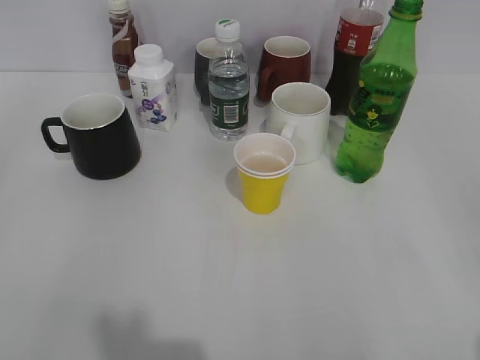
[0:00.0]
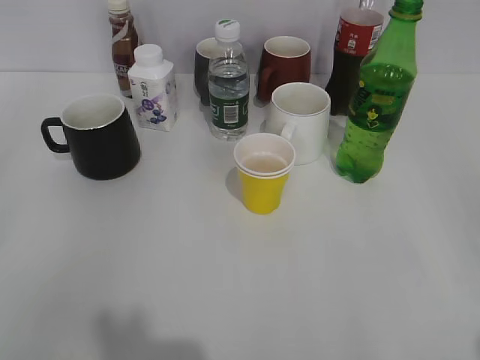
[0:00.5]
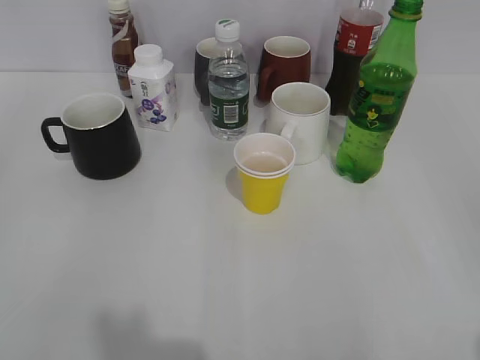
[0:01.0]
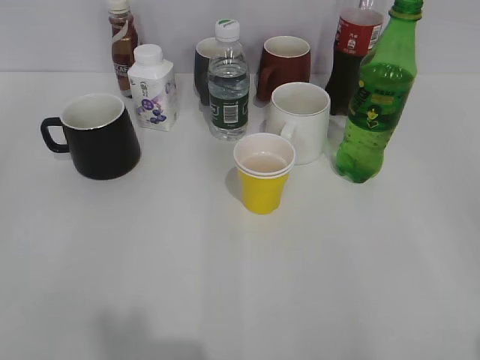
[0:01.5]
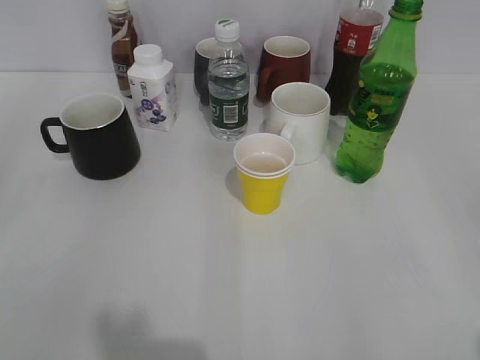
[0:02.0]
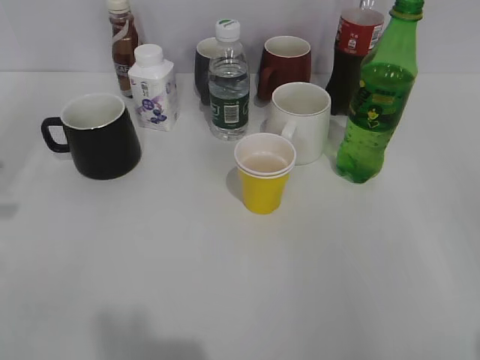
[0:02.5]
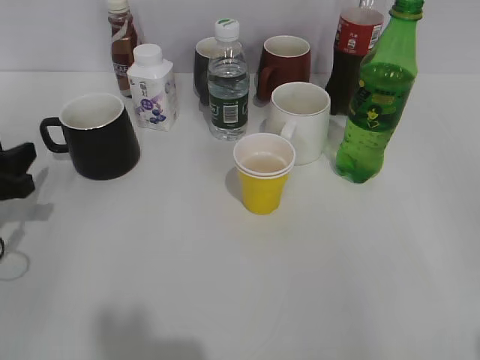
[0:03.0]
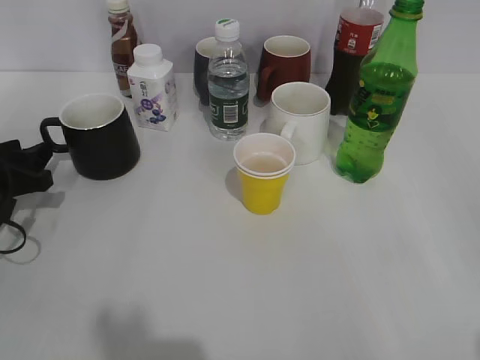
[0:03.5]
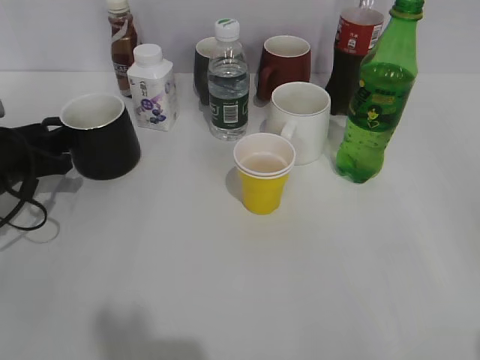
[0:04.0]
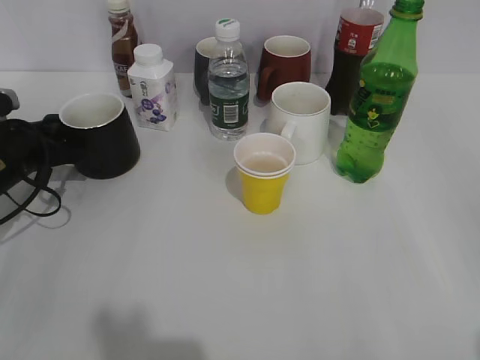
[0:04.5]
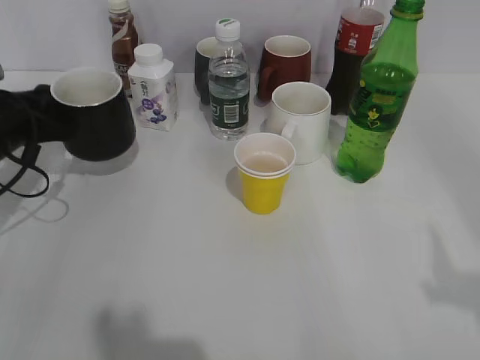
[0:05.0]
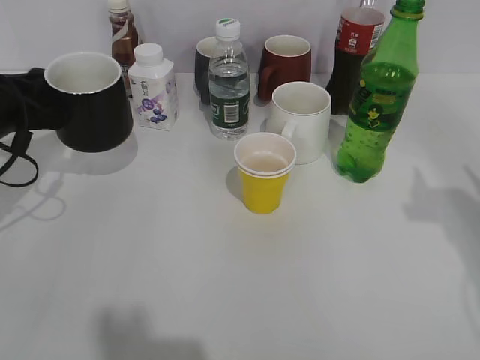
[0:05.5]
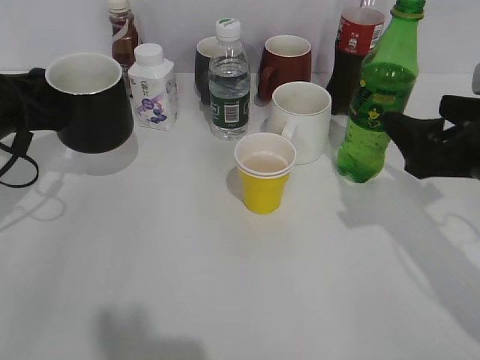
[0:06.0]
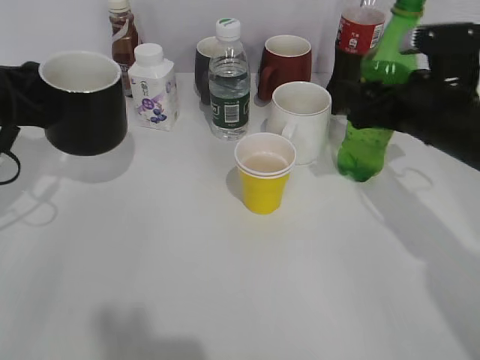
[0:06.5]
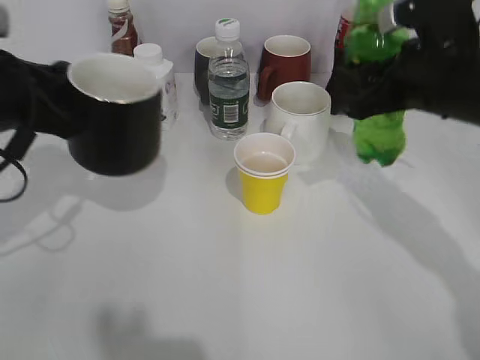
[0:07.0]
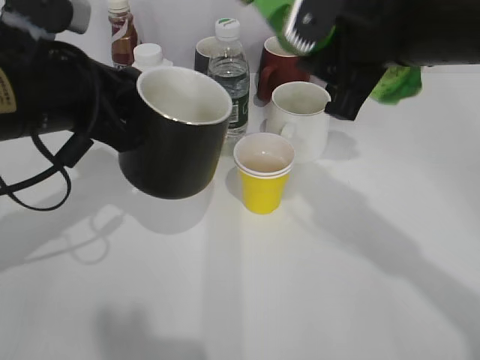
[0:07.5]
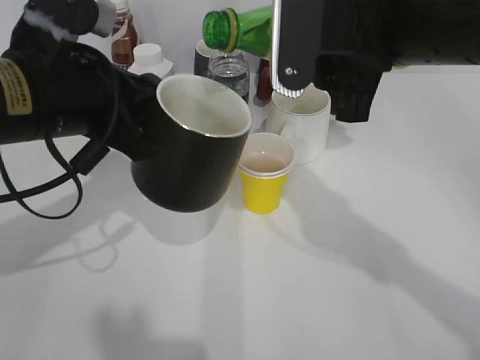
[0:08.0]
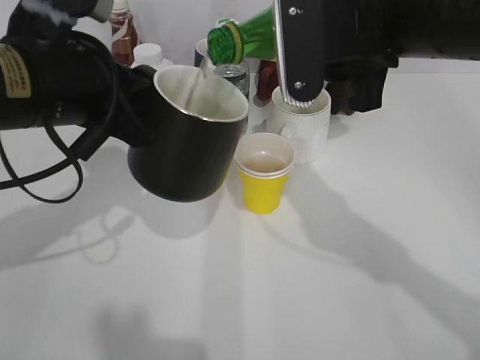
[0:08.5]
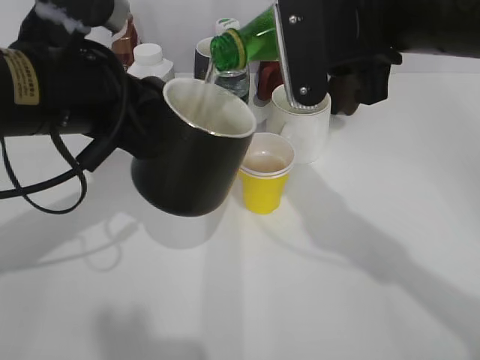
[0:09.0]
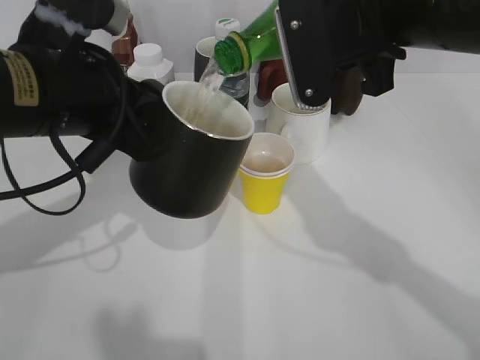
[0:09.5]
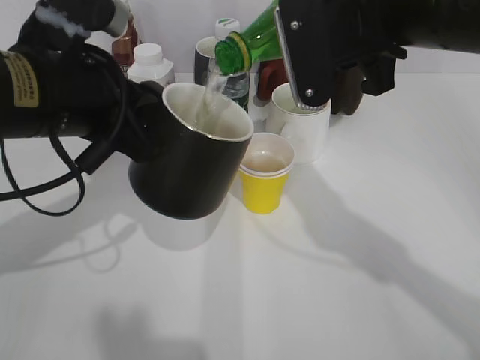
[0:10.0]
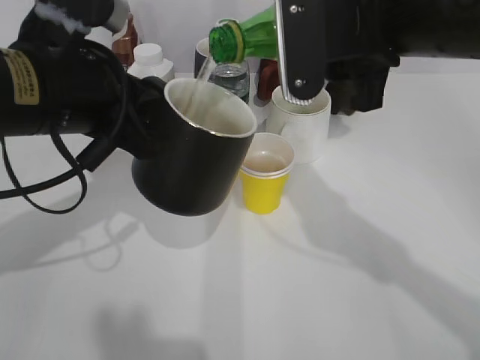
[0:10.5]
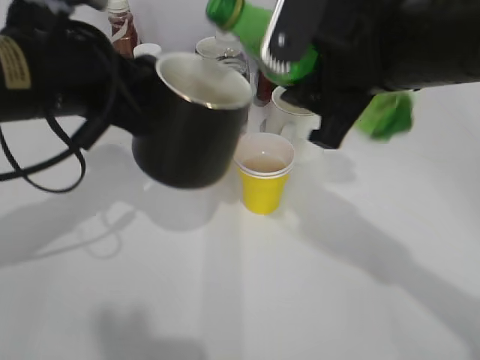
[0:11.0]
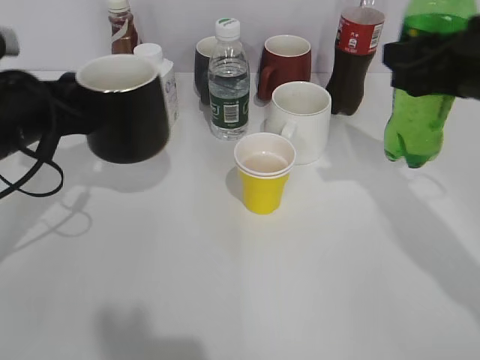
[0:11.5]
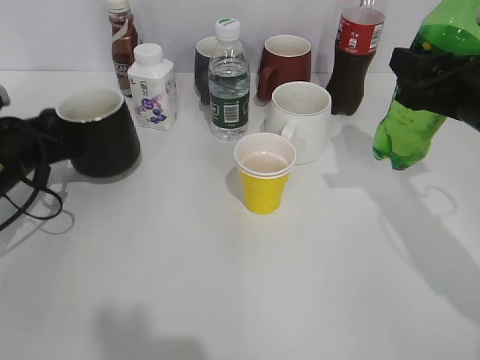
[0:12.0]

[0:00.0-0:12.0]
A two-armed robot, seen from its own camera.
Step, 0:02.0 to 0:04.0: Grasp the black cup with left gripper.
Step, 0:04.5 to 0:05.0: Lift the black cup with left gripper.
Step, 0:05.5 to 0:06.5: Grasp the bottle with sprite with right gripper.
Step, 0:07.0 to 0:10.5: Pour the sprite from bottle to cup with right gripper.
Step, 0:11.0 to 0:11.5: Place the black cup on the table with left gripper.
0:02.0 to 0:04.0: The left gripper heads forward and downward, covering approximately 35 cm.
0:04.0 to 0:06.0: The right gripper travels forward by approximately 20 cm; the left gripper goes some 5 cm upward, and closes up.
0:06.0 to 0:08.0: The left gripper shifts approximately 15 cm to the right, upward and backward. The right gripper goes approximately 15 cm to the left and upward, and closes.
0:10.0 to 0:12.0: The right gripper goes about 15 cm to the right and downward. The left gripper moves downward, to the left and forward, about 20 cm.

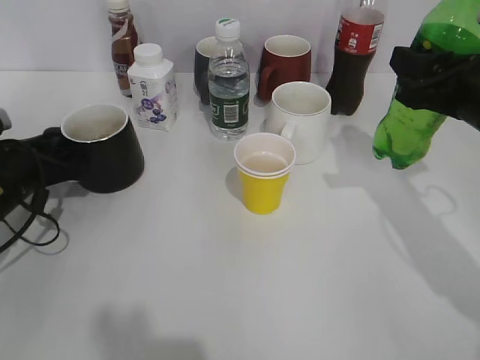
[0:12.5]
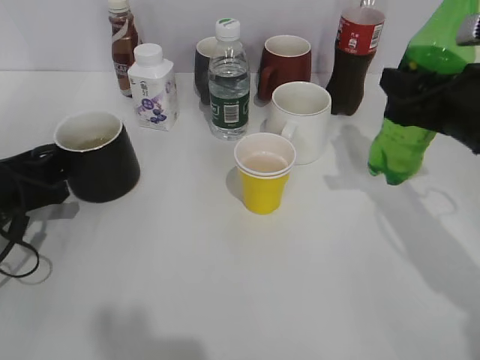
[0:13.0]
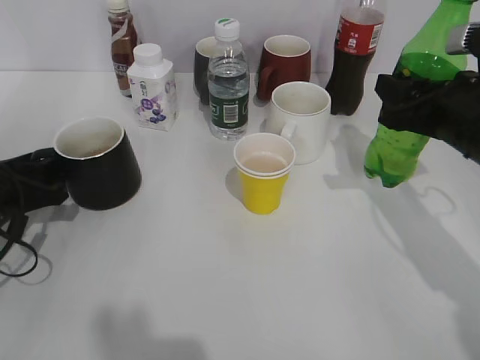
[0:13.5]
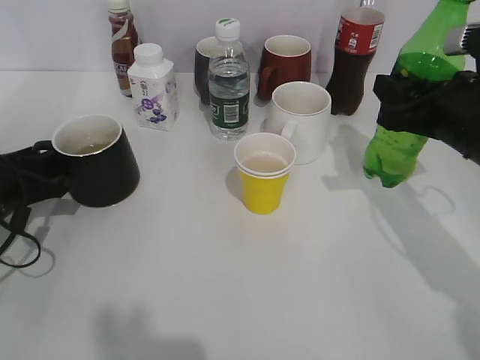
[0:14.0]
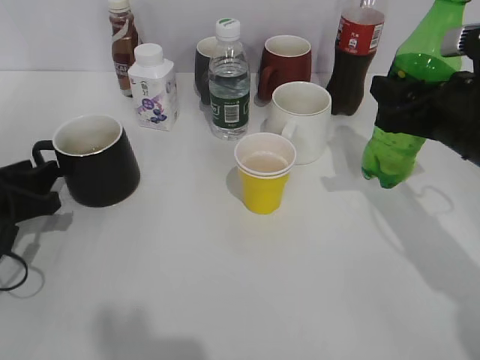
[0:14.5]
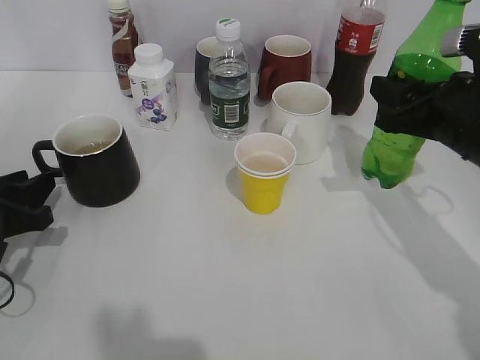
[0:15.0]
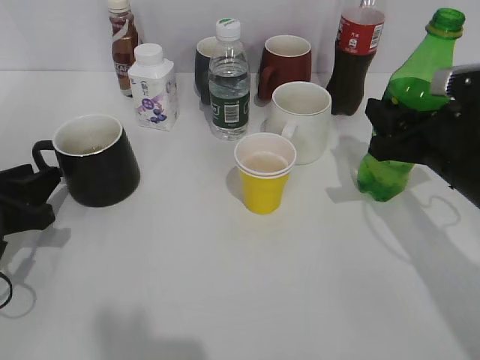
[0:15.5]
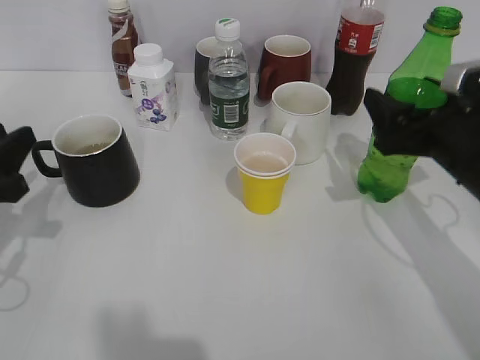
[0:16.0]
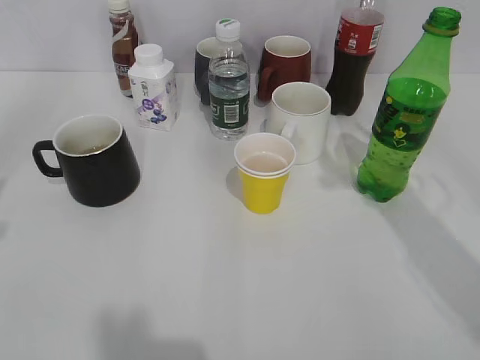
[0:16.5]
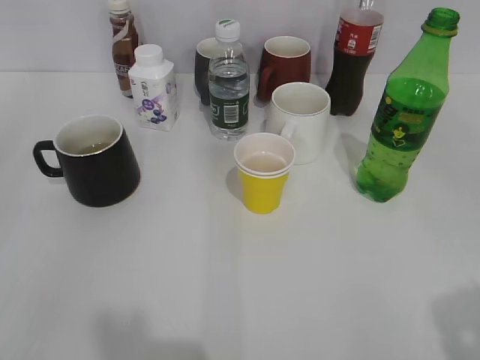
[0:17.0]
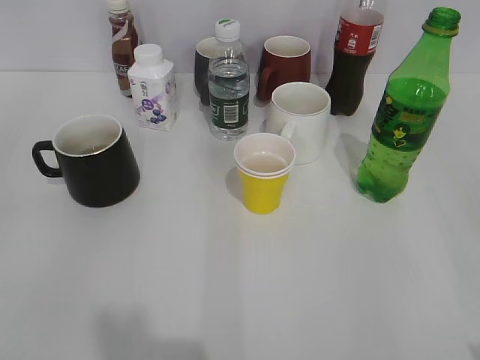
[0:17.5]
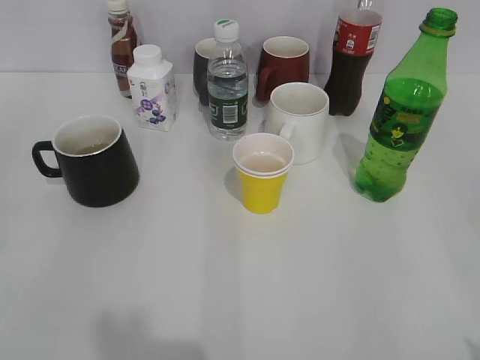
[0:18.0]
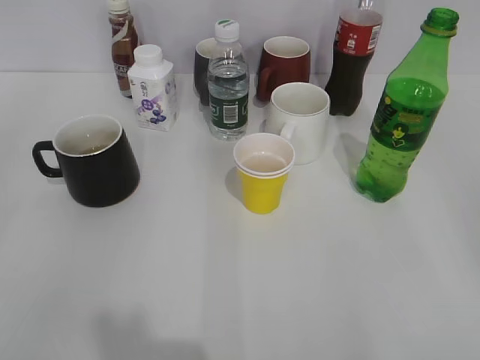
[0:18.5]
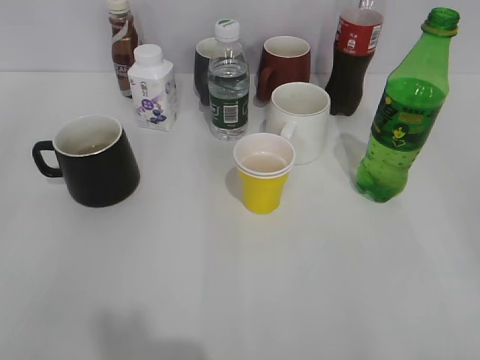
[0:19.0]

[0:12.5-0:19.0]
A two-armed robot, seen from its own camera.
Step, 0:12.5 to 0:16.0: Place the sprite bottle on the table with right gripper.
0:12.5 to 0:14.5: The left gripper moves backward, approximately 5 cm, and opens its fingers.
0:14.5 to 0:17.0: The two grippers go approximately 30 cm backward and upward. The left gripper opens, while the right gripper opens its fingers.

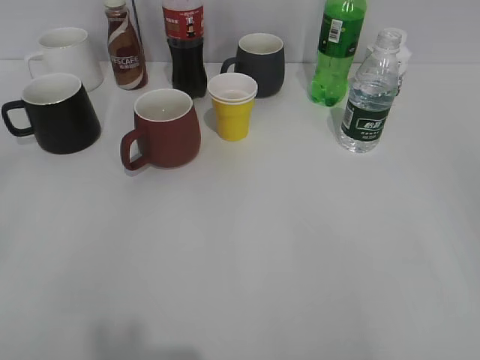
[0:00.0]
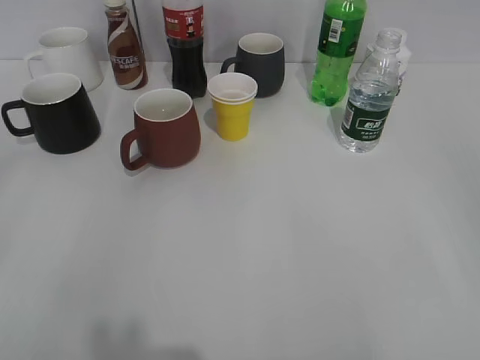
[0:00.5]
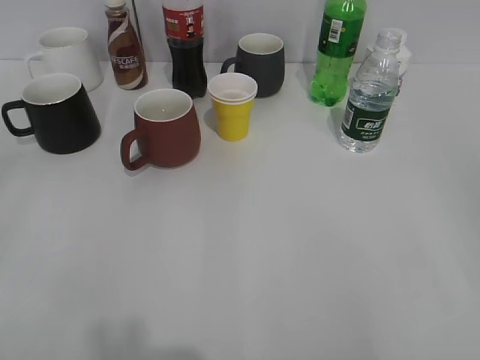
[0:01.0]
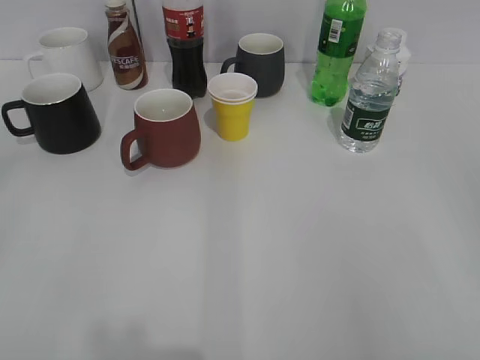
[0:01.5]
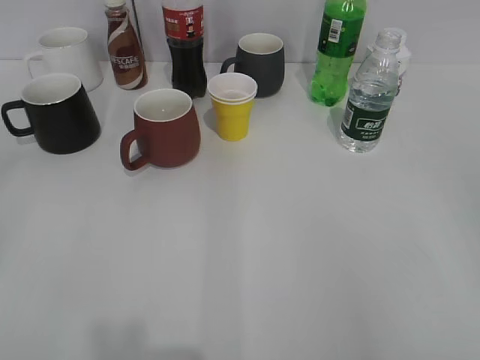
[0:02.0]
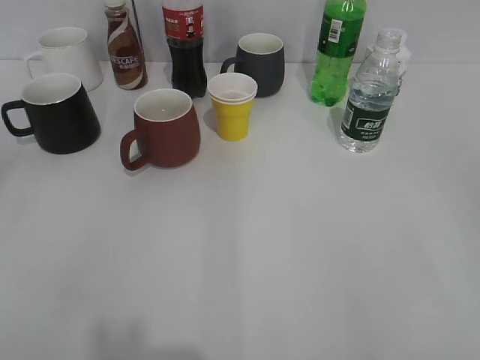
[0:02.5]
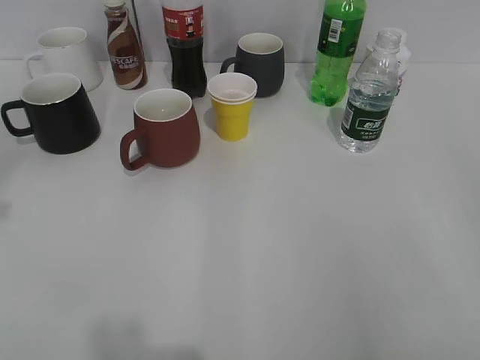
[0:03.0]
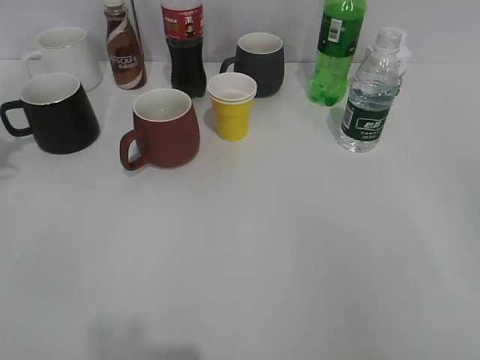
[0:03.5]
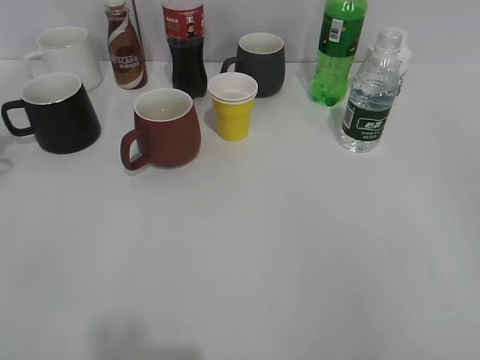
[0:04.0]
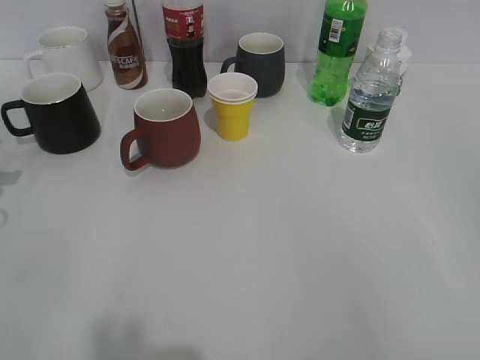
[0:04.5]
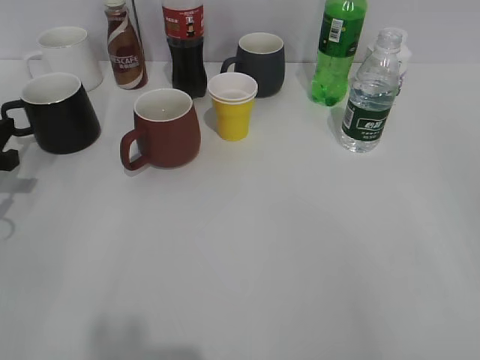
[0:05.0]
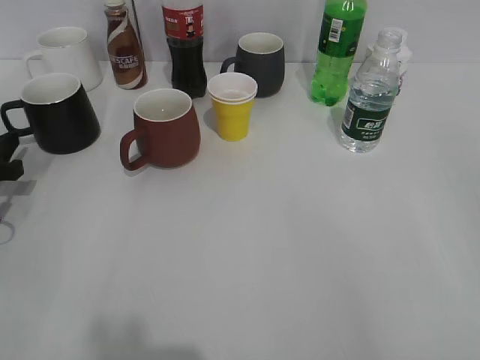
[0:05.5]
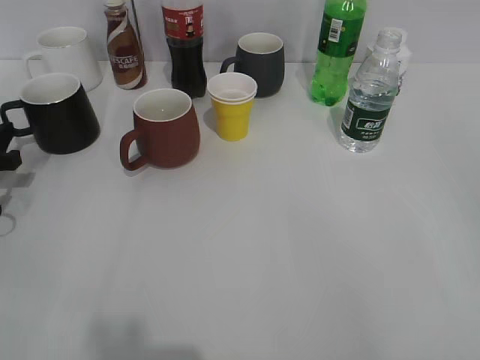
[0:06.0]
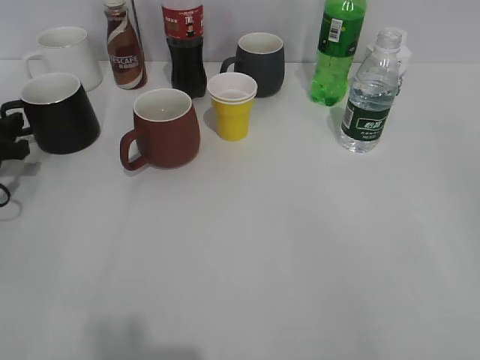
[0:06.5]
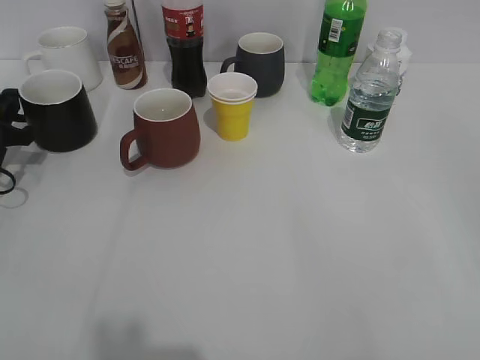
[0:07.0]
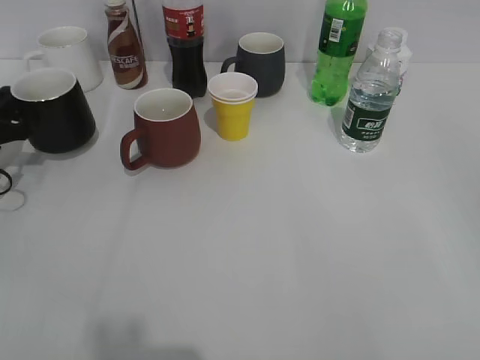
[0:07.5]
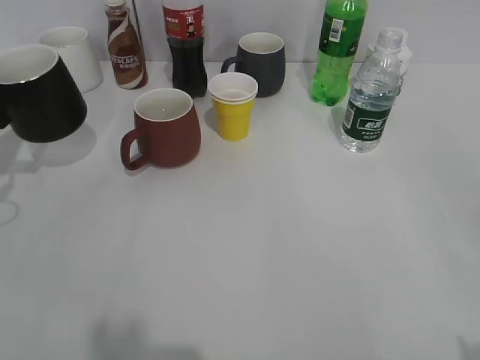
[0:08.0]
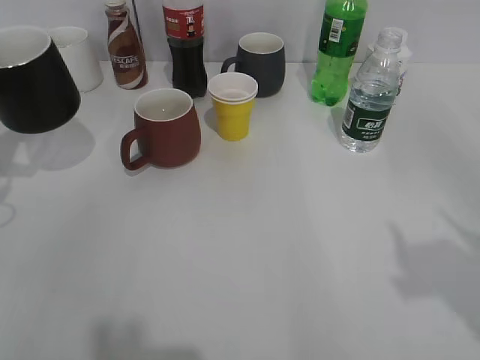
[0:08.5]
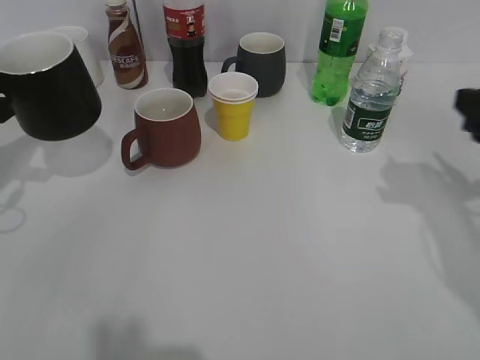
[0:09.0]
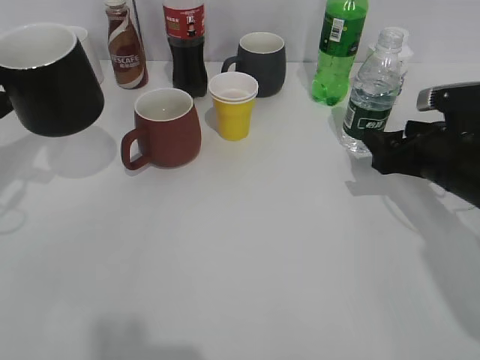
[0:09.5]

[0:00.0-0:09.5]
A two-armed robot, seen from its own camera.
Step, 0:02.5 to 0:07.0: Grasp the black cup with left gripper.
Step, 0:07.5 to 0:08.5: Lift the black cup with left gripper.
0:04.0 to 0:05.5: The left gripper moves downward, some 10 cm, and opens up.
0:05.5 to 0:07.5: The left gripper closes.
0:07.5 to 0:09.5: The right gripper is displaced forward and downward by some 35 cm. The left gripper goes roughly 10 cm upward and backward.
